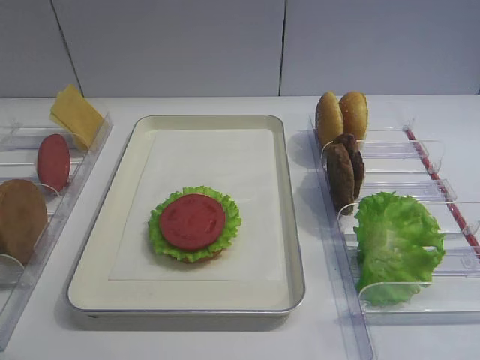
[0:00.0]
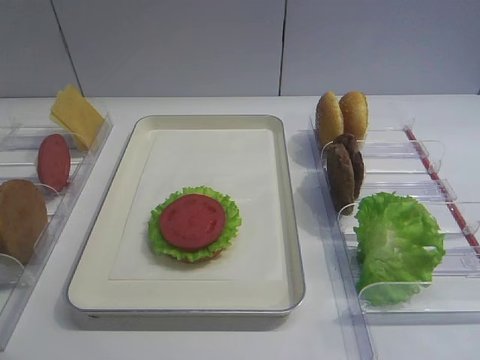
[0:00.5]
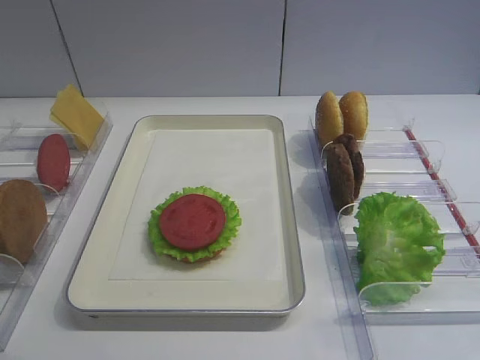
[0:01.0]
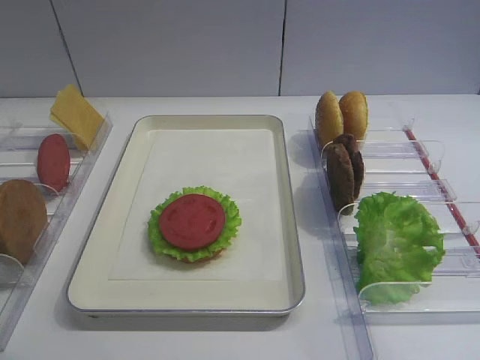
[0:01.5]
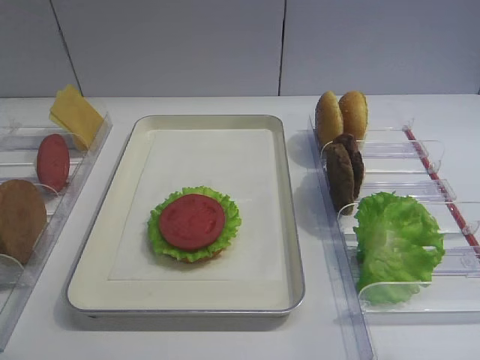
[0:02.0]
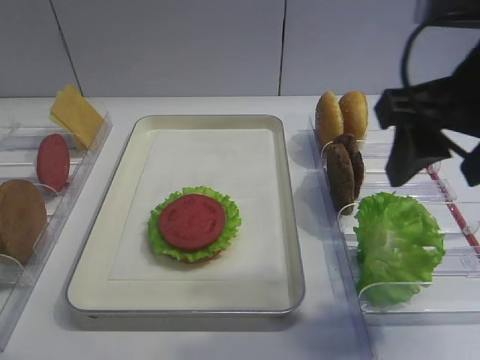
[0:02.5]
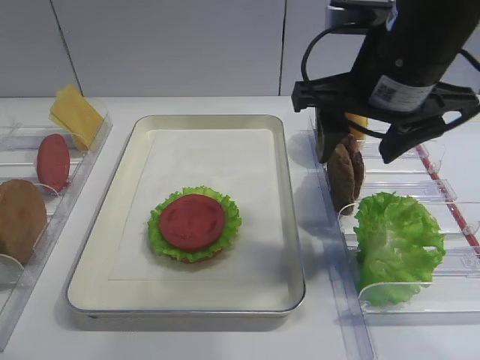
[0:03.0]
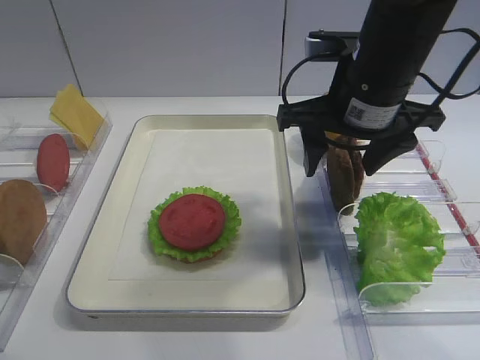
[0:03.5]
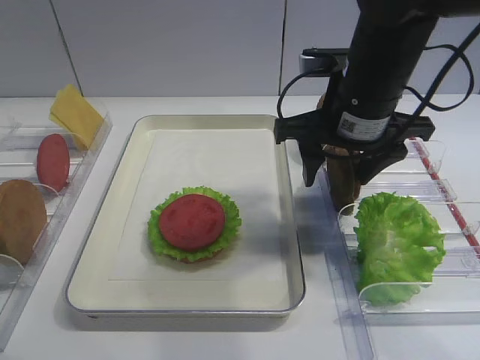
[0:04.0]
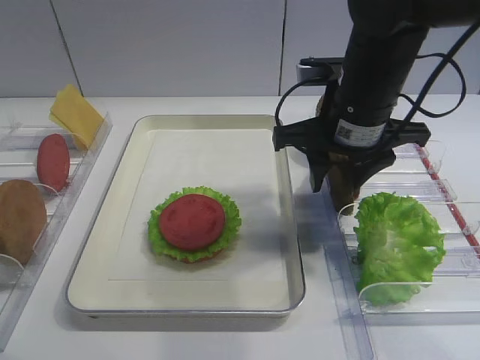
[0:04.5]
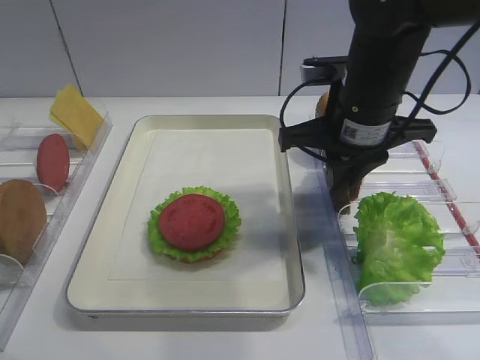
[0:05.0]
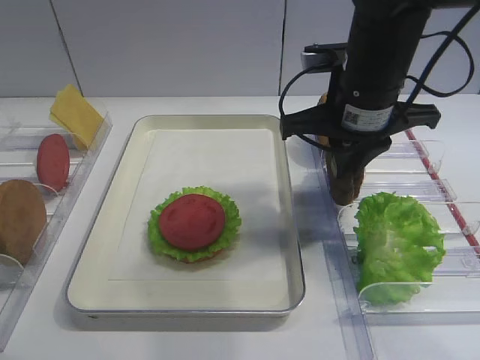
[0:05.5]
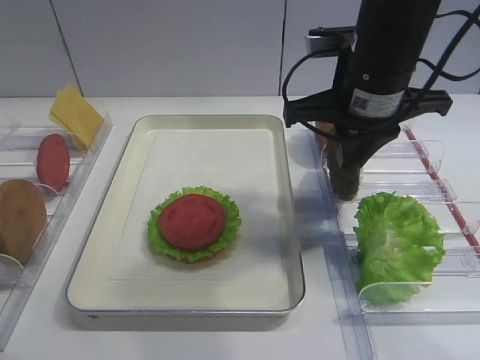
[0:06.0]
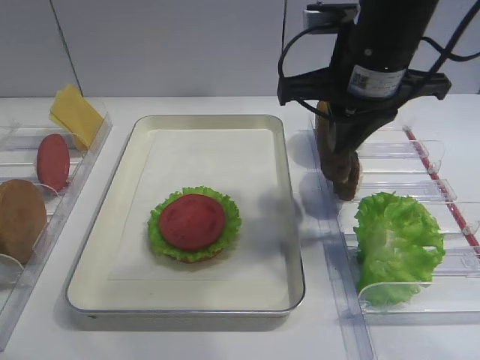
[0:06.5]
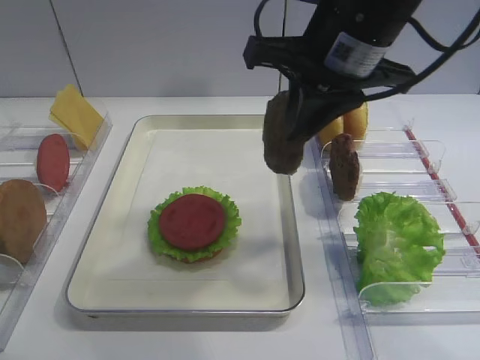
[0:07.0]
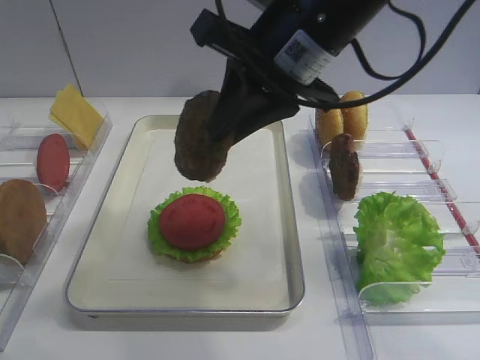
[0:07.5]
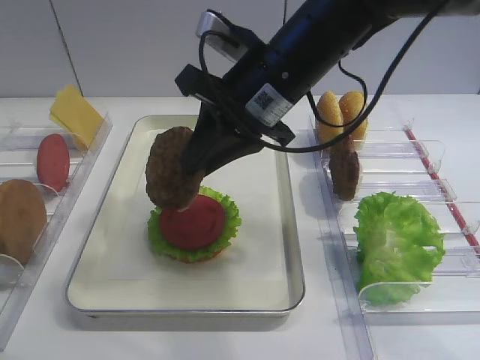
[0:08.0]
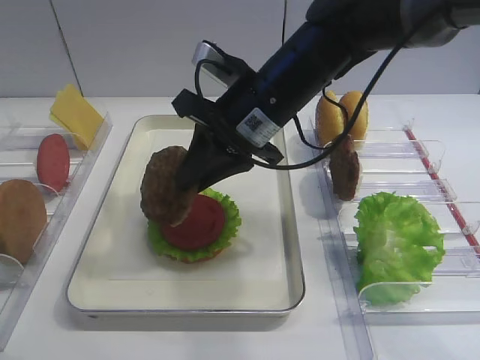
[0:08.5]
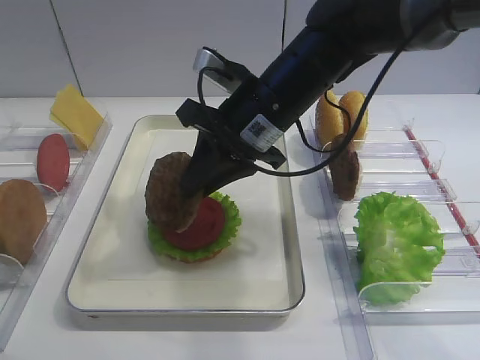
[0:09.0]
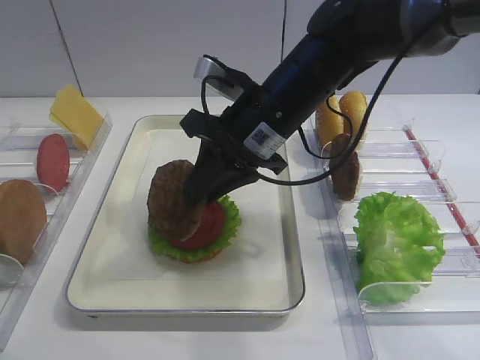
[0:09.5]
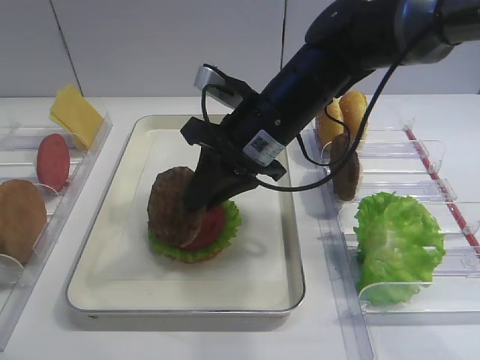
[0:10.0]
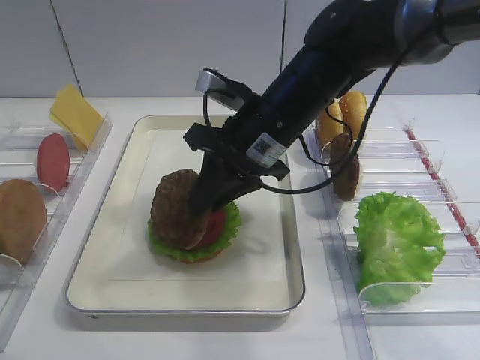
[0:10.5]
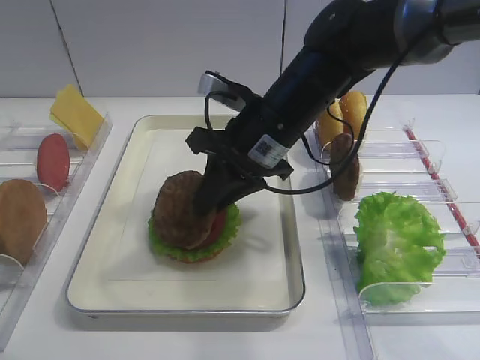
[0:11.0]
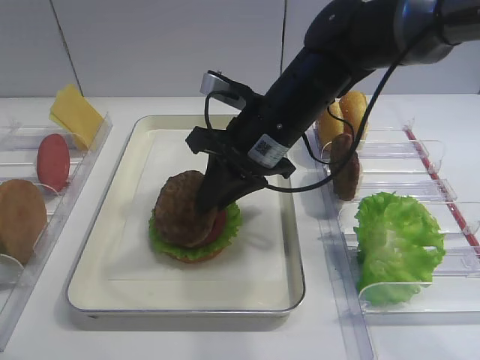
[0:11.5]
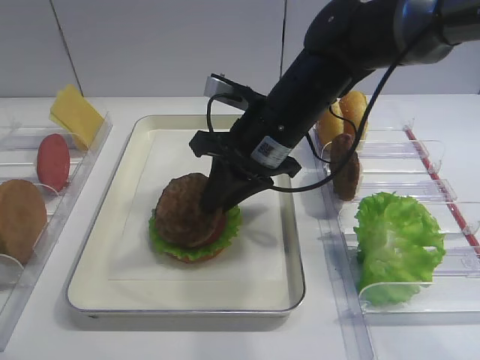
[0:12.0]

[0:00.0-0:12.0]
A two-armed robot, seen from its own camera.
Step, 0:00.0 to 0:06.0: Pick up the cutlet with the right gripper.
0:02.0 to 0:04.0: The right gripper goes approximately 25 cm forward, downward and to the left.
0:04.0 to 0:06.0: The right gripper closes its fingers.
0:06.0 to 0:08.0: The right gripper is displaced to the left by roughly 10 cm.
0:08.0 to 0:10.0: The right gripper travels downward by roughly 5 cm.
0:10.0 to 0:12.0: The grippers move only a little.

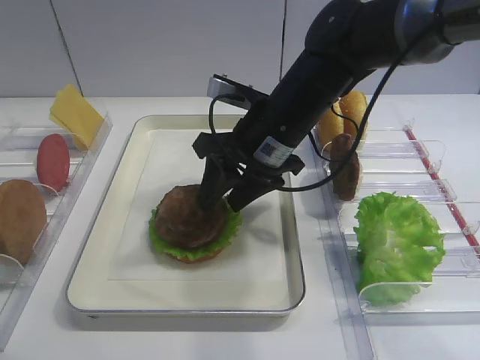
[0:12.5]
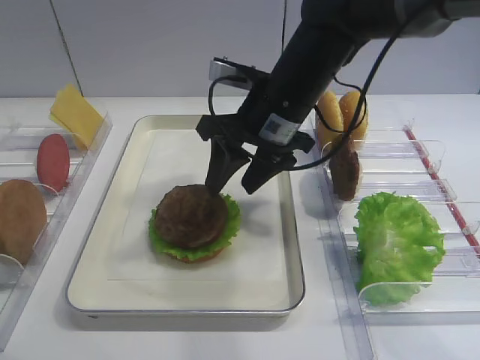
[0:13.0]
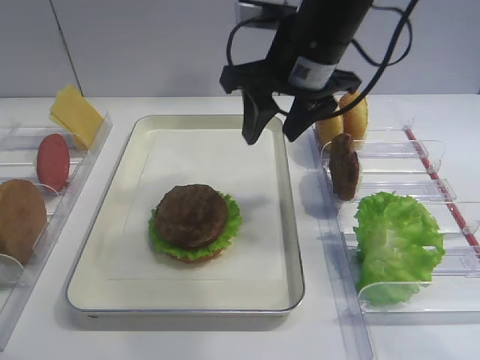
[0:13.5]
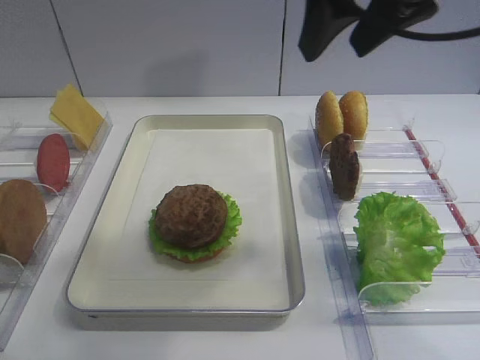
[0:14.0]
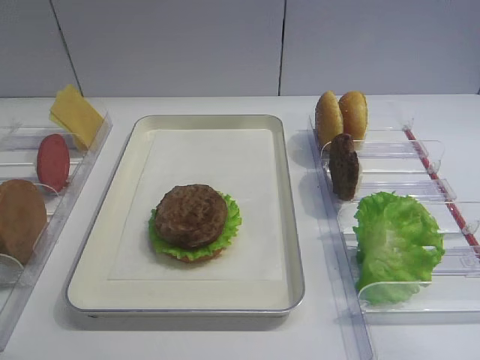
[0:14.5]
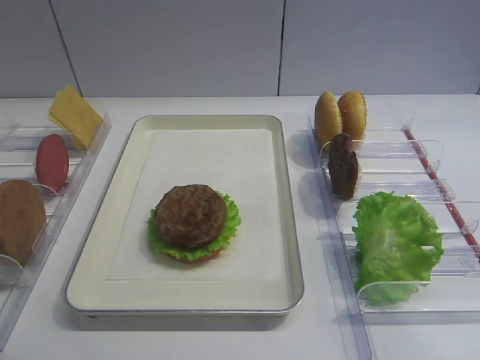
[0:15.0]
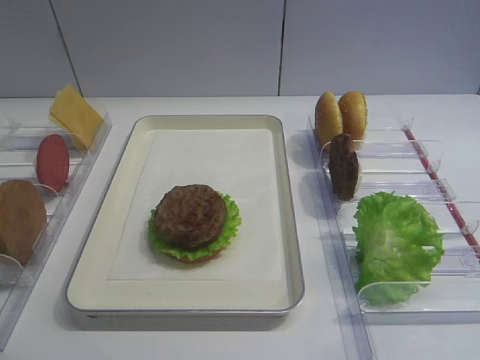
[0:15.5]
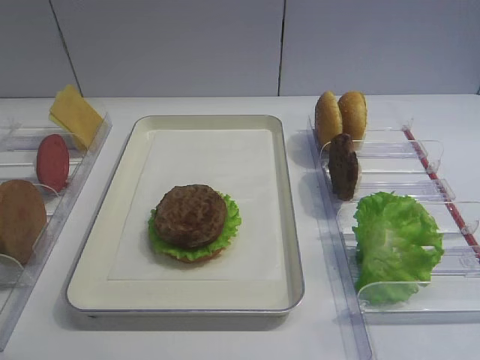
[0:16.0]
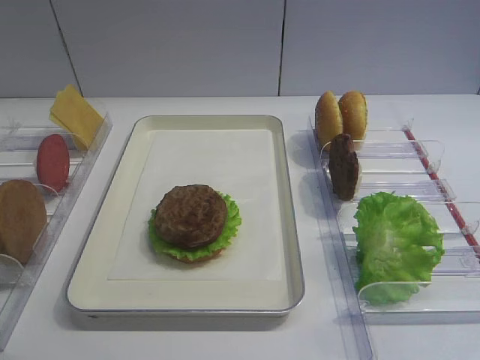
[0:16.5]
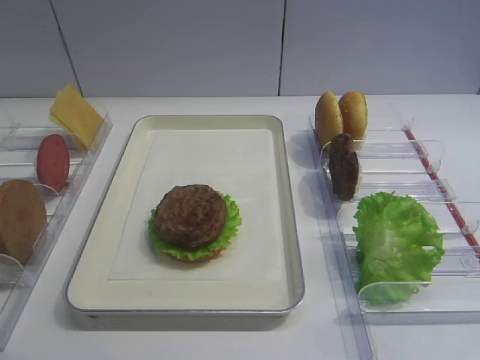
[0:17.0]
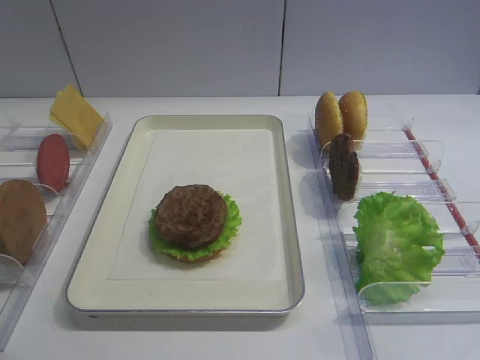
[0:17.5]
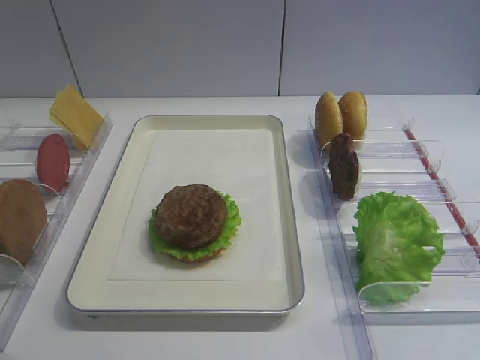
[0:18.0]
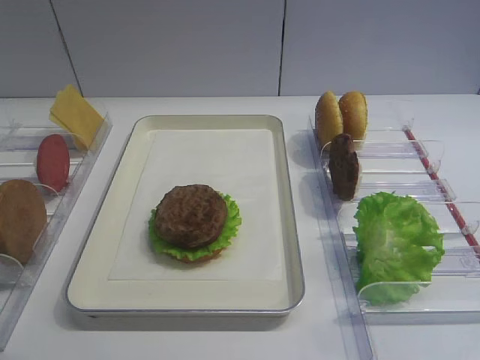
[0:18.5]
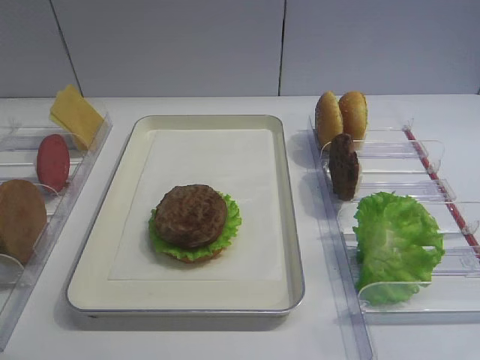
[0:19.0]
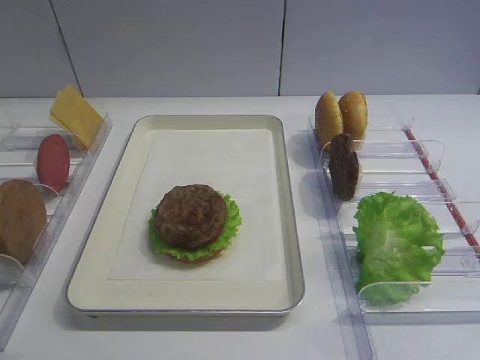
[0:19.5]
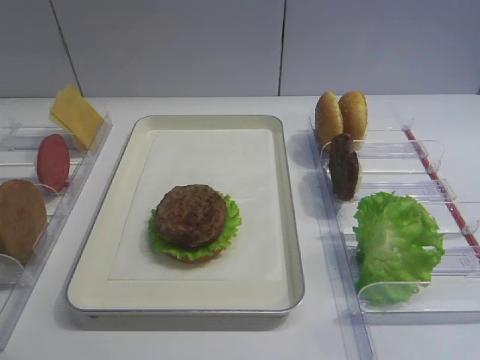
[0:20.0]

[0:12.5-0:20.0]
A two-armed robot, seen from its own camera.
0:12.5 to 0:14.5: The right gripper travels backward, upward and to the right by approximately 35 cm.
0:14.5 to 0:16.5: The right gripper moves downward and backward, roughly 20 cm.
0:16.5 to 0:18.0: Neither gripper changes place.

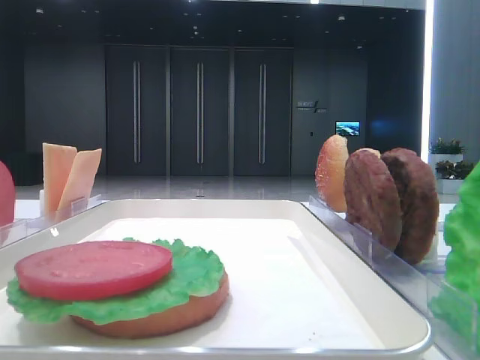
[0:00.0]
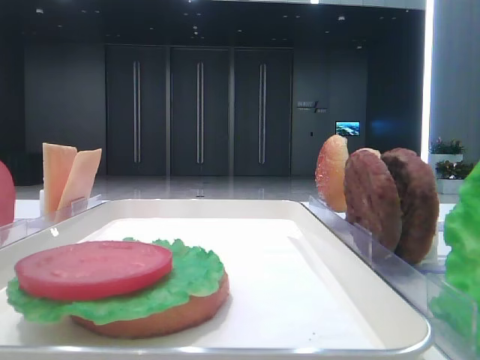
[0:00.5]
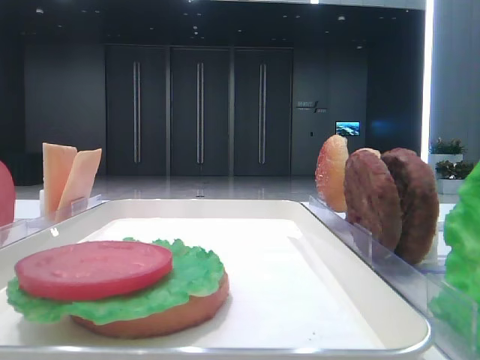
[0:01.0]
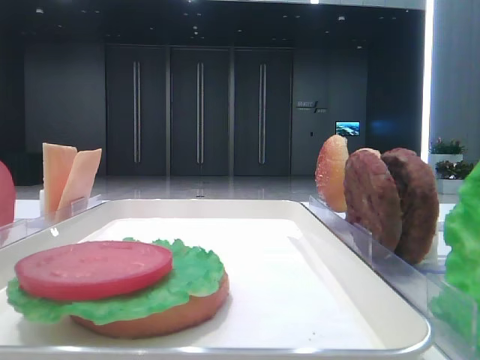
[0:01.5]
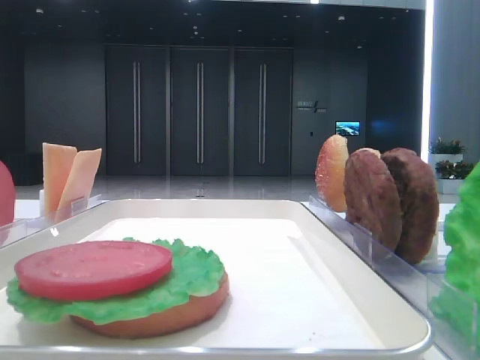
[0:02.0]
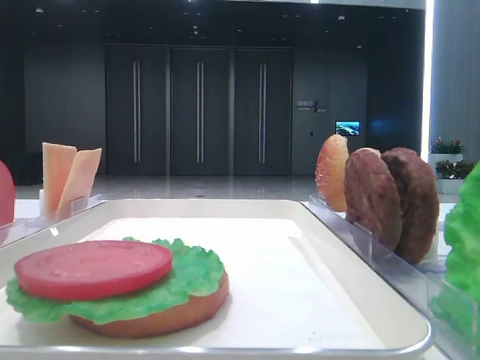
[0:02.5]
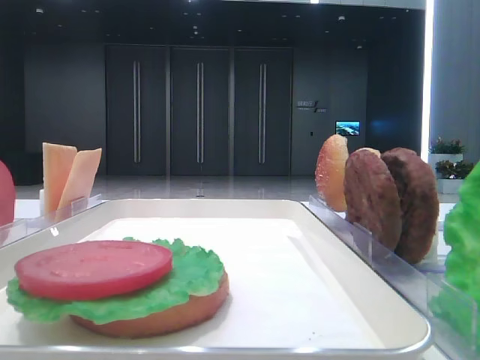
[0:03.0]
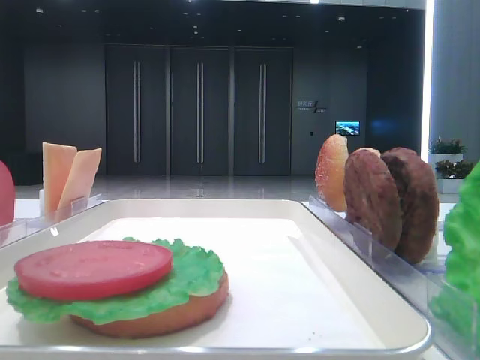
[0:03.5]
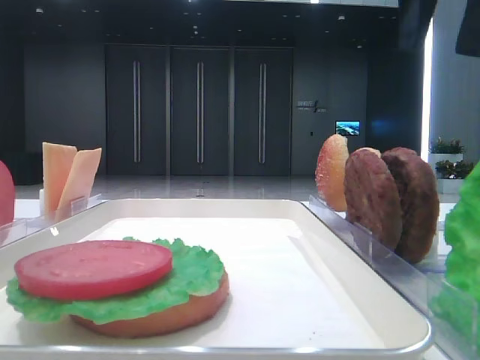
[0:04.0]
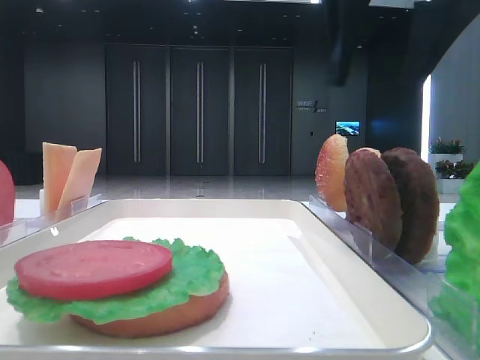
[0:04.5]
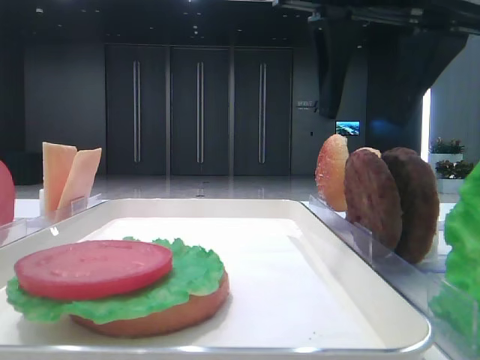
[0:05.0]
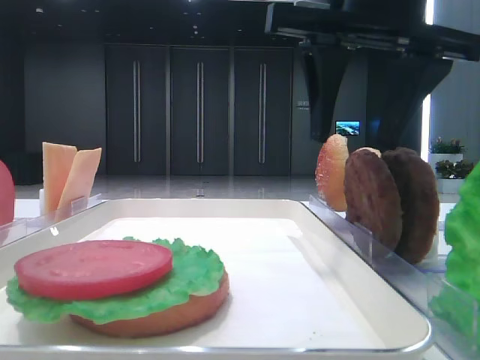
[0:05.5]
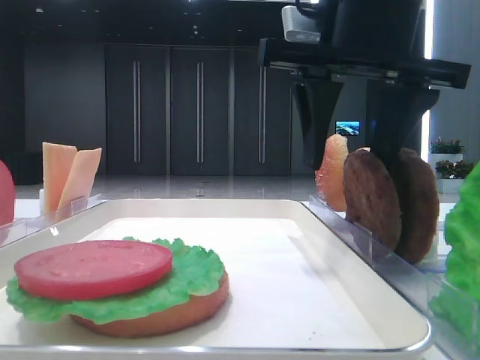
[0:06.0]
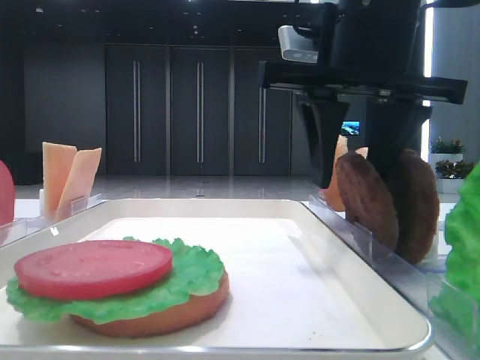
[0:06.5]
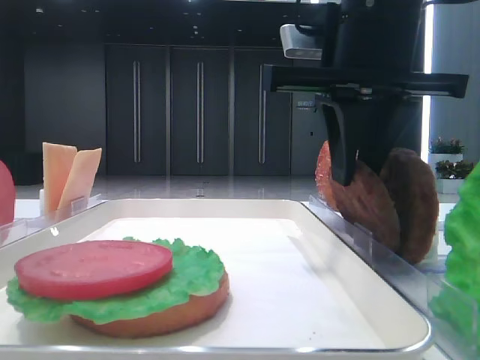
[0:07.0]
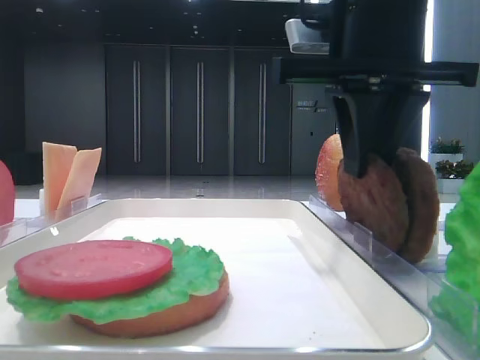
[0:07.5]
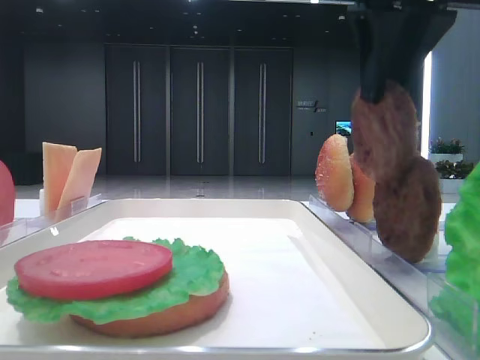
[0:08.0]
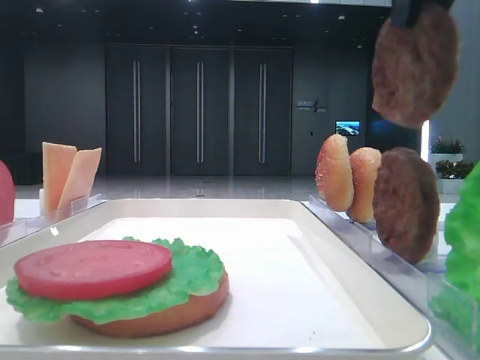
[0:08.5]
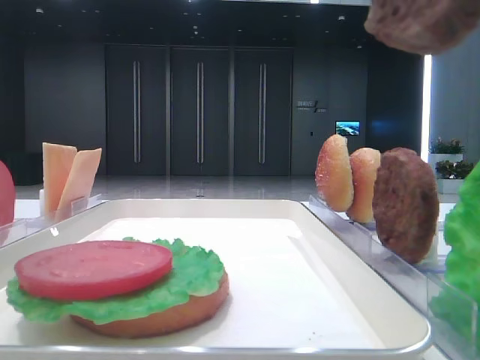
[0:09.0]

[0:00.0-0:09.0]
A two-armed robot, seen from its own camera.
Step, 0:00.0 to 0:07.0: Grab the patty with the right hand.
0:02.0 to 0:04.5: The right gripper moves forward and to the left, approximately 30 cm, and opens its fingers.
0:04.5 to 0:07.0: The right gripper goes about 5 cm downward, and closes.
0:07.0 to 0:09.0: The right gripper is displaced backward and upward by some 20 cm.
